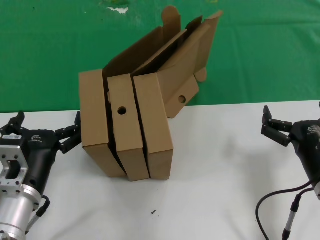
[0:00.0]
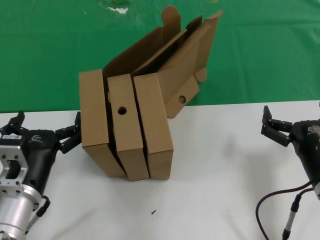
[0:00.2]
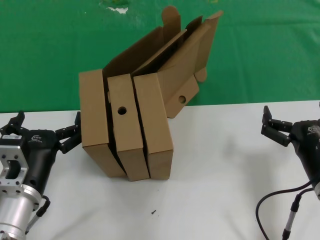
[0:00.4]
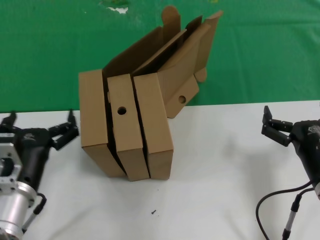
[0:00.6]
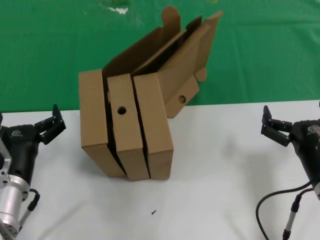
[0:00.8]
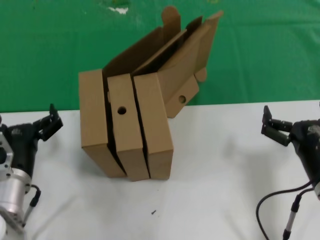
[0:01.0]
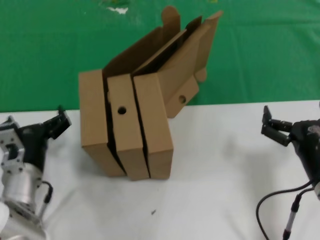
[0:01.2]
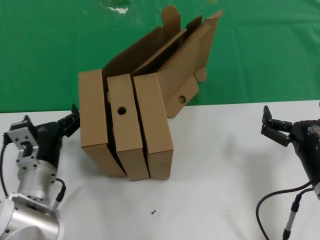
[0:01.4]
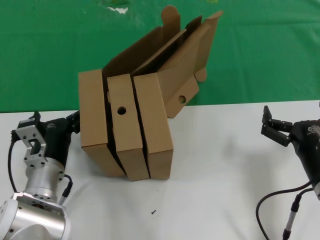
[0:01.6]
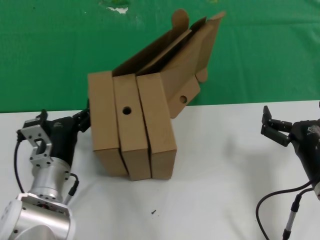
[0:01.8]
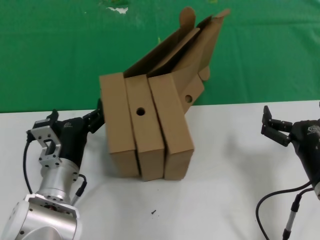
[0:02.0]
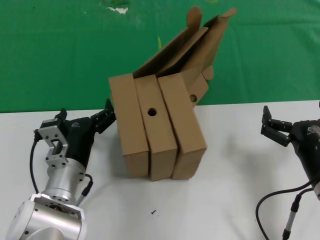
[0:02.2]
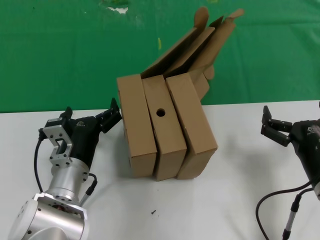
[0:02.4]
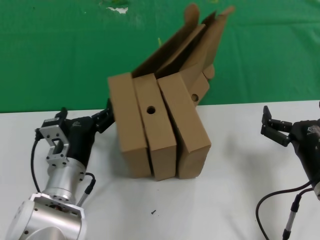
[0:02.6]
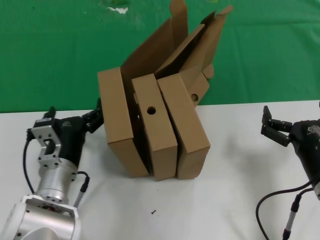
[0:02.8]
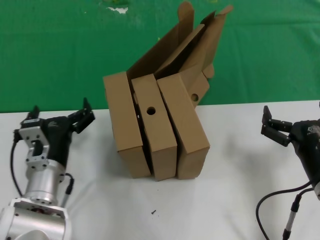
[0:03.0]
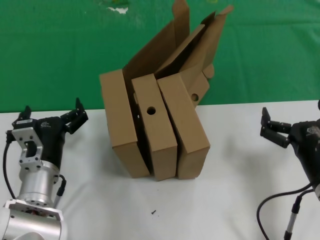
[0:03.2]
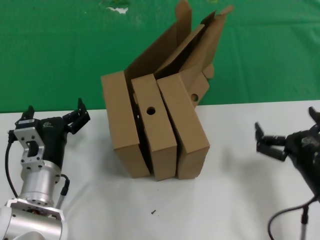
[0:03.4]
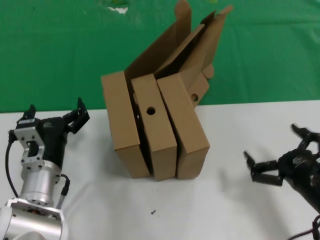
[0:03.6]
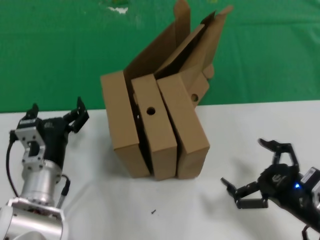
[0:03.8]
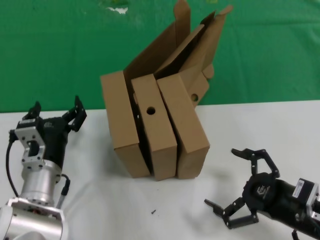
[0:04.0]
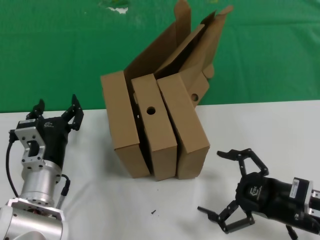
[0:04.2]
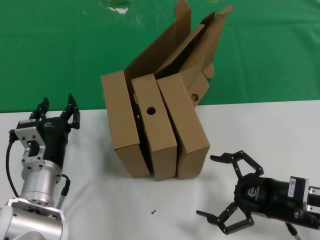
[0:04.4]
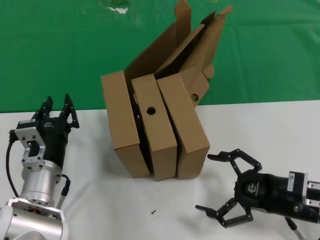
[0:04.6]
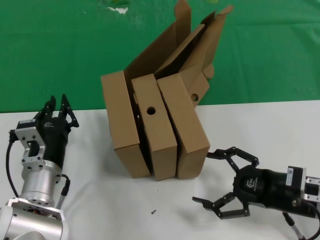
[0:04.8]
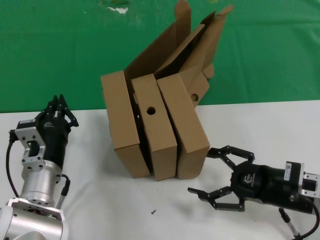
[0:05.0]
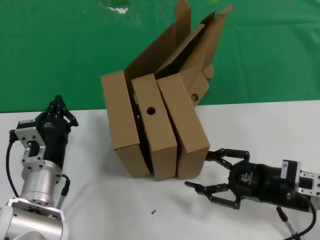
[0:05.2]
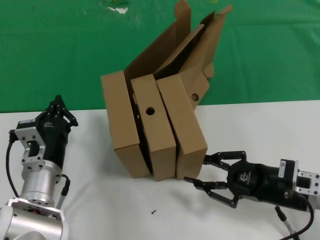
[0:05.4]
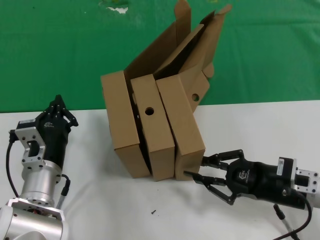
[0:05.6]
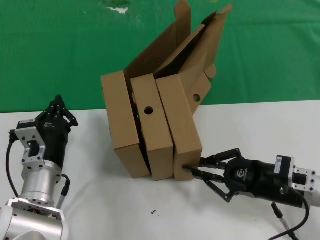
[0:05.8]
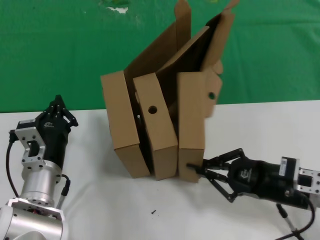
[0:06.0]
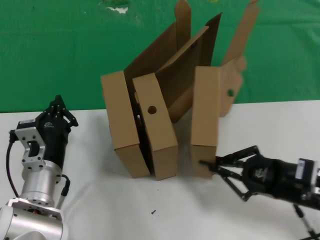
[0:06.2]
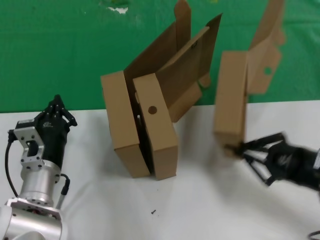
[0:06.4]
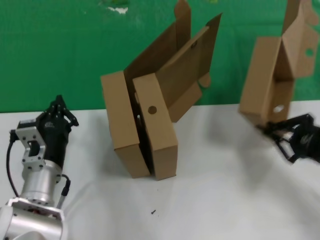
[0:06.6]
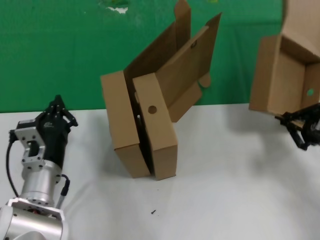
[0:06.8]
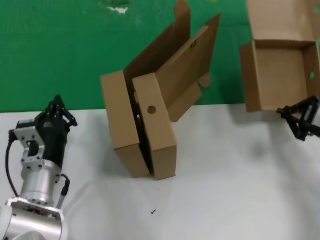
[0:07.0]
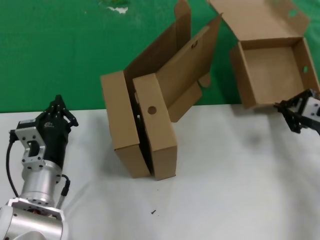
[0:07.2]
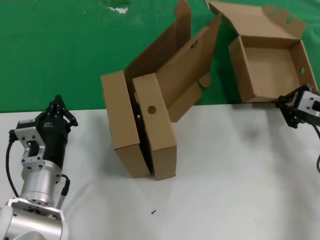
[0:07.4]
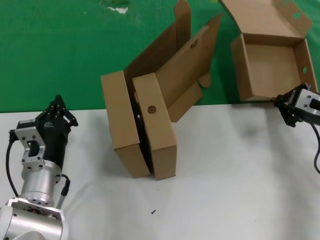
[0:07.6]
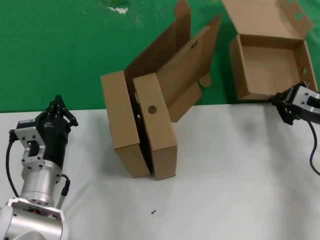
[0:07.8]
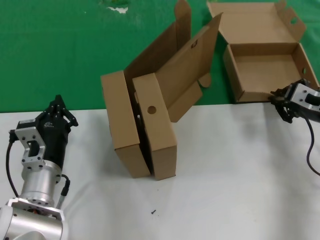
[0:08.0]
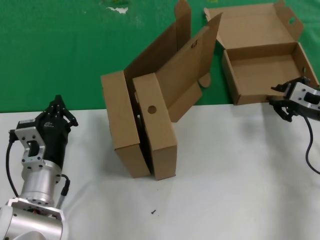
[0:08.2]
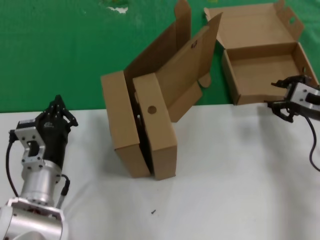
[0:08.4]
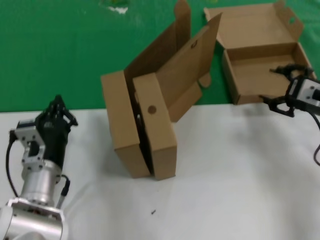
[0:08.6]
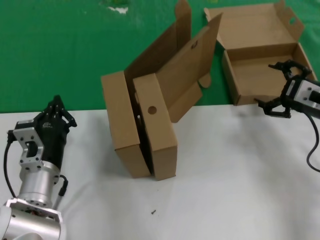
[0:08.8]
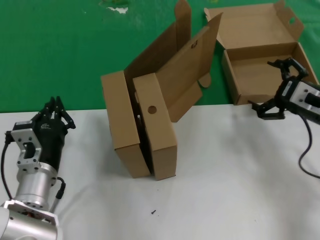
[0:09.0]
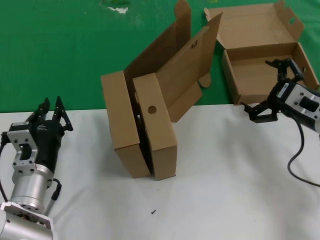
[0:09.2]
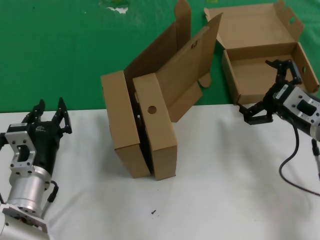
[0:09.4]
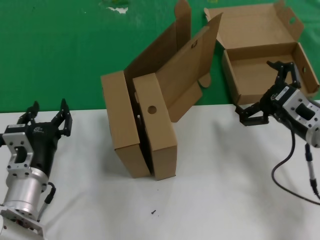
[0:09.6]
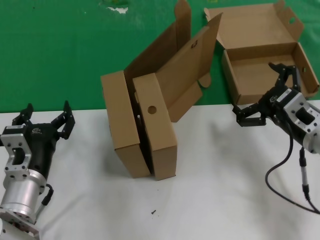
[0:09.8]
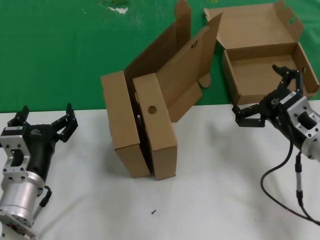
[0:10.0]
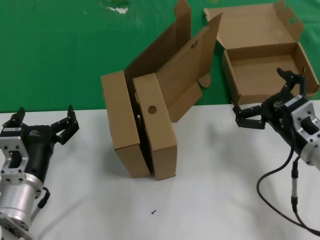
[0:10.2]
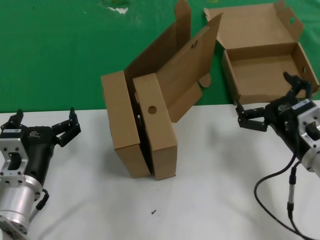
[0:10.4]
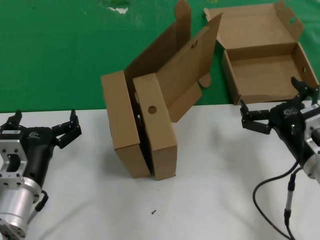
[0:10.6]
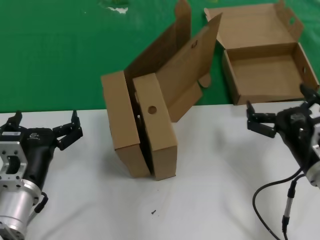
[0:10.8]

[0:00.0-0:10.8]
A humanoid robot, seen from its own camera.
Task of the whole recording: pick up the paper box and put it at the back.
Step, 0:00.0 to 0:05.8: Grasp the paper box.
Step, 0:06.2 to 0:08.2: Place the paper box on the table.
0:00.0 to 0:01.6: The left hand travels forward by roughly 10 cm.
0:01.6 to 0:03.0: The hands move only a little.
0:03.0 to 0:04.6: The right hand changes place by roughly 5 cm.
0:04.6 to 0:06.2: The hands make only small movements.
0:06.2 to 0:07.8: The right hand travels forward and upward by approximately 15 cm.
0:07.8 to 0:09.2: The right hand shifts by some 5 cm.
0:09.2 to 0:10.8: The right hand heads backward and downward, covering approximately 10 cm. The left hand travels backward by about 5 cm.
